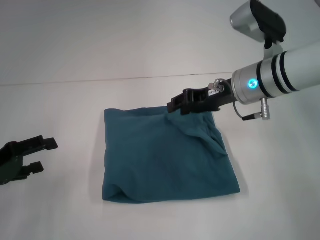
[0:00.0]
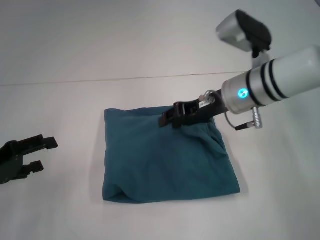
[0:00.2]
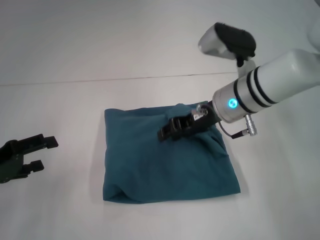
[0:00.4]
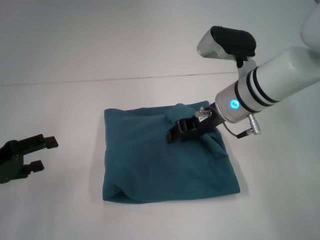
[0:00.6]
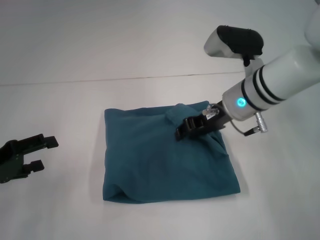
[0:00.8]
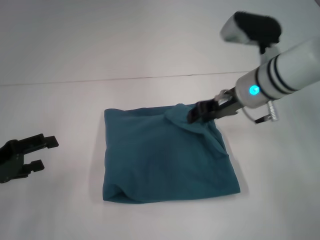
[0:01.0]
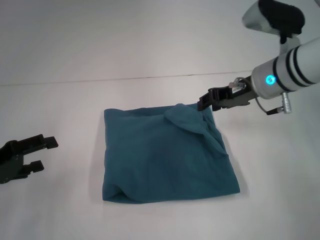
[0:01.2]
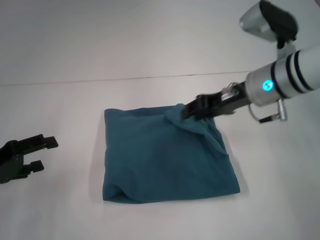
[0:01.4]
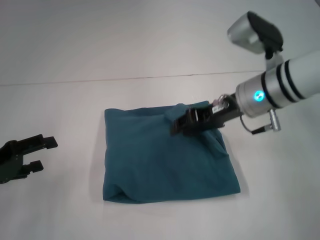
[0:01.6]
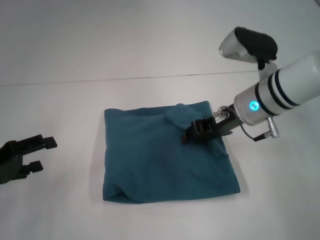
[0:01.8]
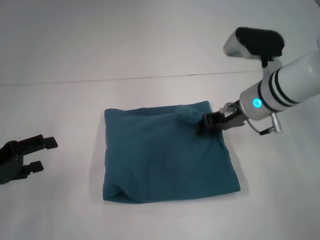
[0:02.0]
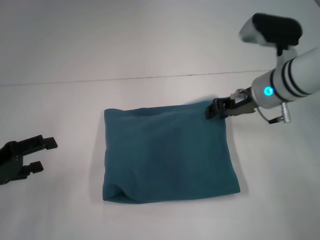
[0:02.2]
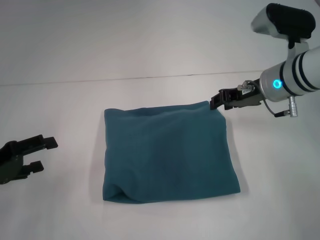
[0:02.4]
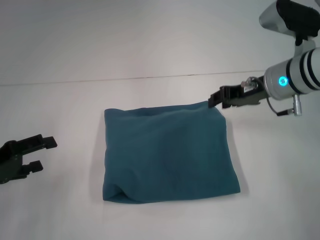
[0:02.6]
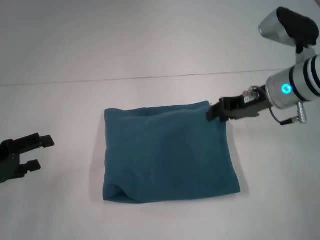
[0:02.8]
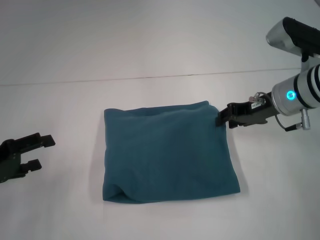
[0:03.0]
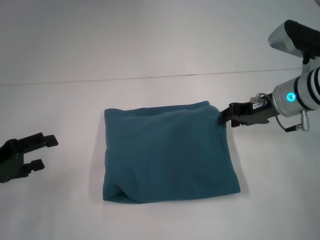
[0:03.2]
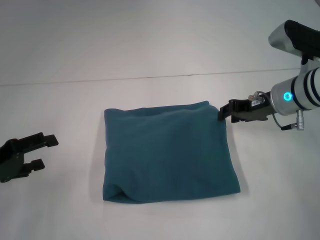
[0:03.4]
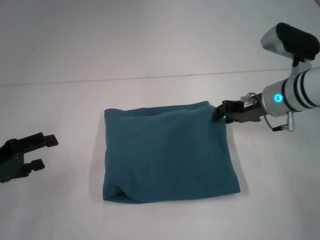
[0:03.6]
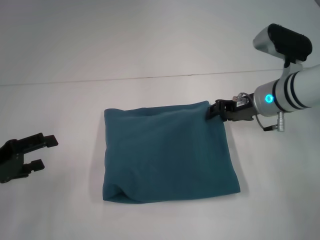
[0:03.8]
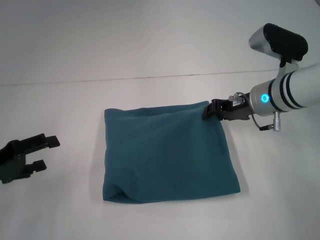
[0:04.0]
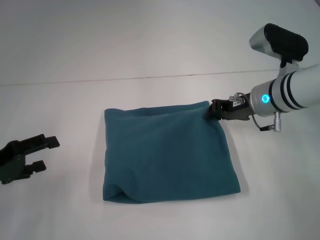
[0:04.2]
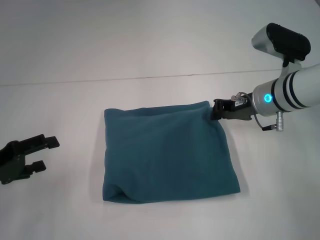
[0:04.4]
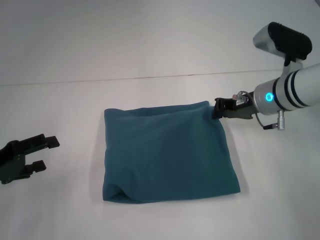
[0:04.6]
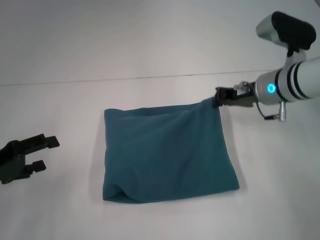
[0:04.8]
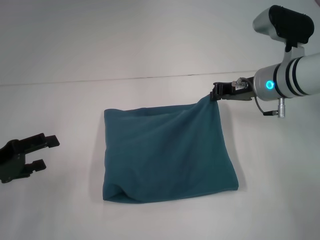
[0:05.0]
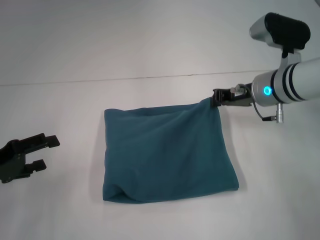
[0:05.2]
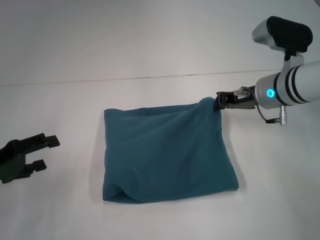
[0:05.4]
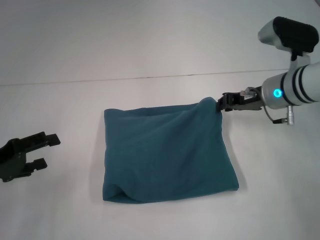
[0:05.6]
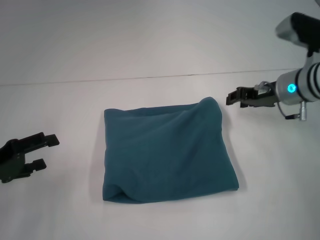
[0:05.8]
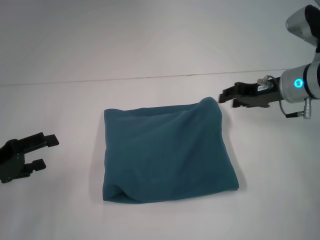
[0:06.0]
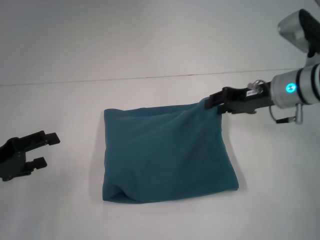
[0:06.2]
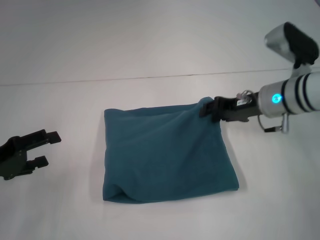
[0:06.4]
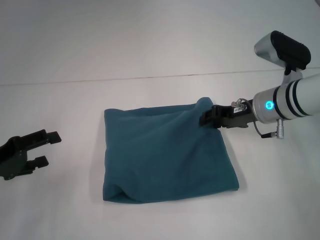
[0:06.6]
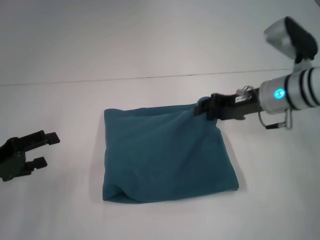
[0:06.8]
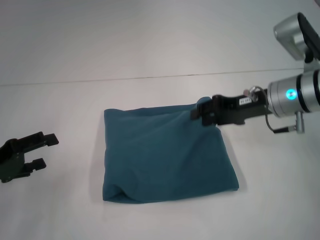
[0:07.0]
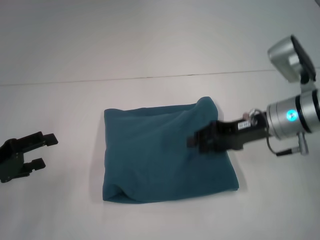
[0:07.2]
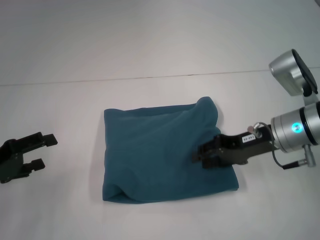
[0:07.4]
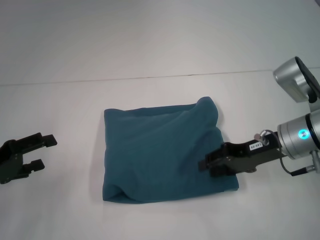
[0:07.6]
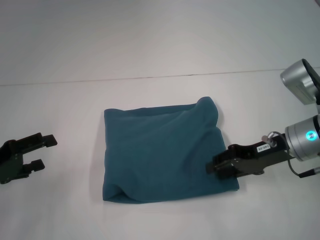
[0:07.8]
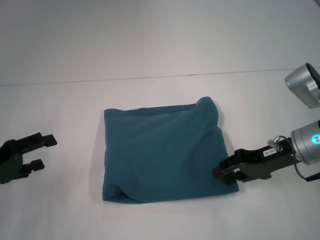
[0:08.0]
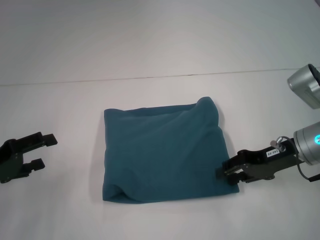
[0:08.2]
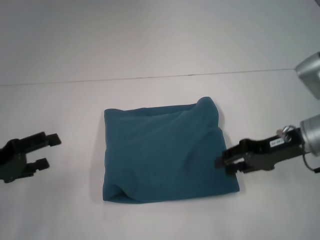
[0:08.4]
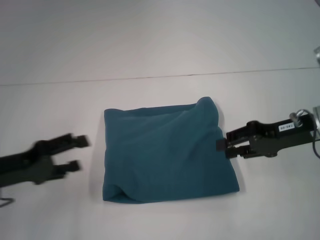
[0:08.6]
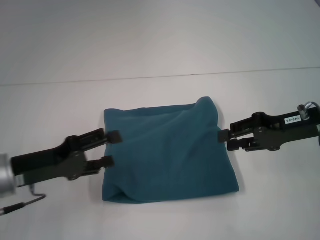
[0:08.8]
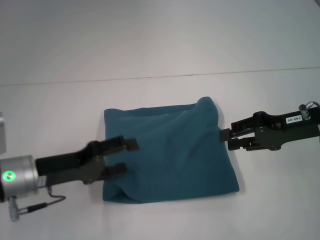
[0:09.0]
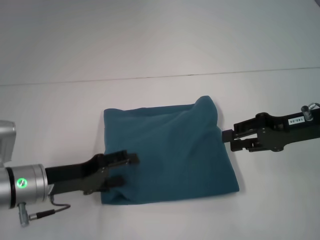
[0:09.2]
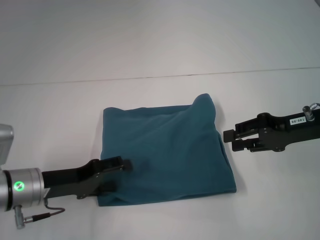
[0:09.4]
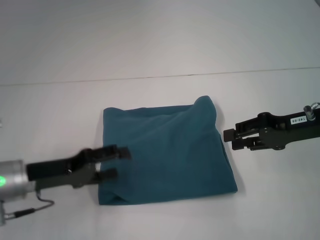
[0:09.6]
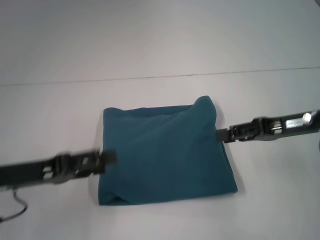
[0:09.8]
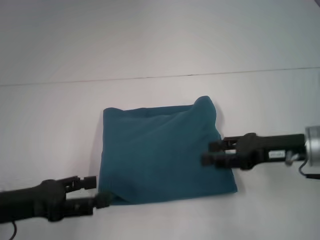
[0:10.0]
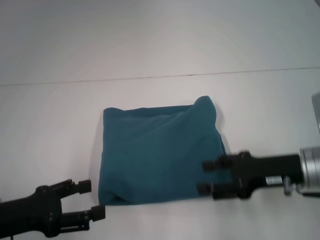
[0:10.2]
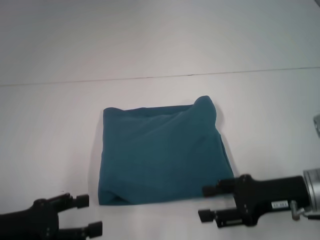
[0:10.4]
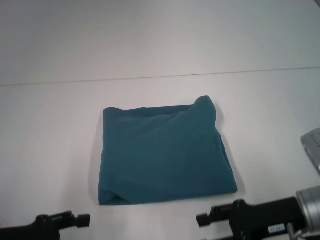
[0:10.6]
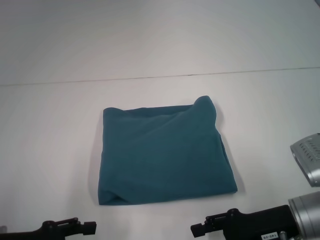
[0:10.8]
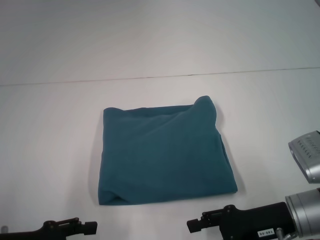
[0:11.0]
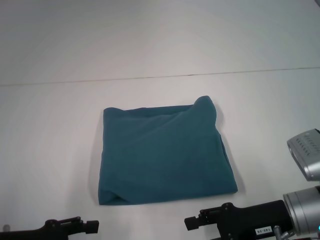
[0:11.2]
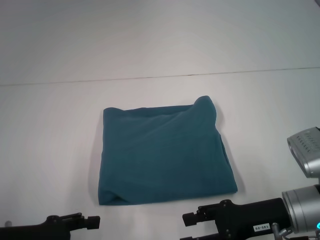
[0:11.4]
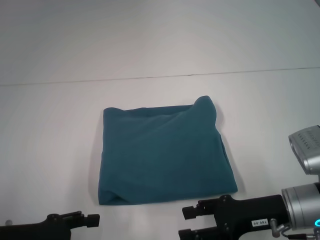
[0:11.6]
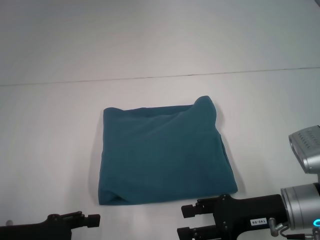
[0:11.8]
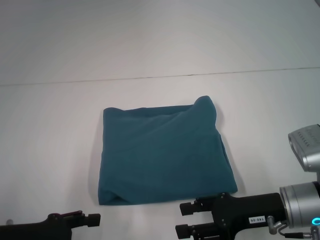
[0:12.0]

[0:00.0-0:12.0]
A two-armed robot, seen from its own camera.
0:00.0 to 0:01.6: There are only small adjustments of the grippers.
0:01.6 to 0:03.0: The right gripper is displaced to the right by approximately 5 cm.
0:03.0 to 0:06.0: The grippers move only a little.
0:06.0 to 0:07.6: The right gripper goes some 5 cm backward.
0:07.6 to 0:09.0: The left gripper heads to the right, covering some 10 cm. The right gripper changes place by about 5 cm.
0:09.0 to 0:10.4: The right gripper heads backward and downward, covering approximately 10 cm. Meanwhile the left gripper is displaced backward and to the left by some 10 cm.
0:10.4 to 0:12.0: There are only small adjustments of the grippers.

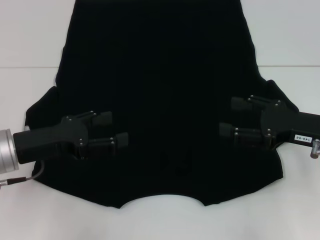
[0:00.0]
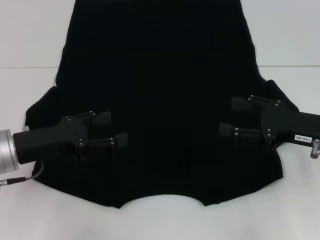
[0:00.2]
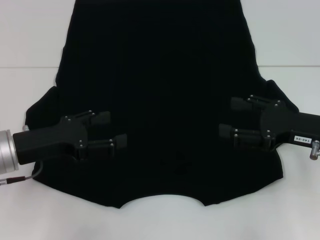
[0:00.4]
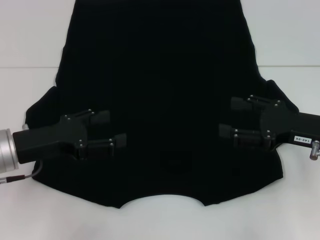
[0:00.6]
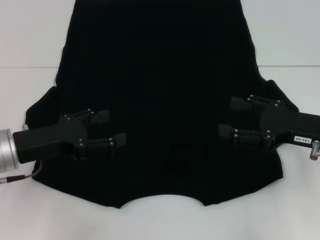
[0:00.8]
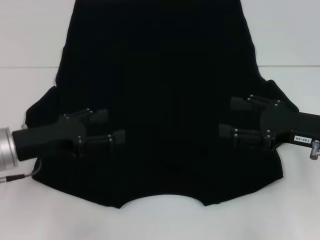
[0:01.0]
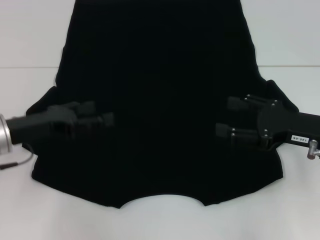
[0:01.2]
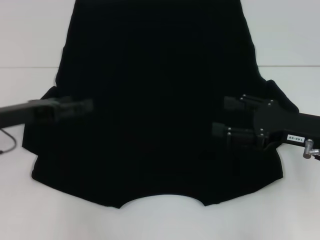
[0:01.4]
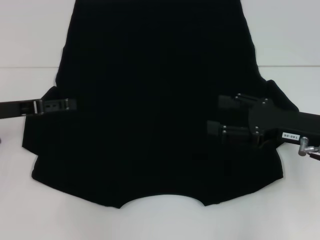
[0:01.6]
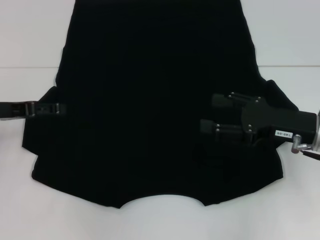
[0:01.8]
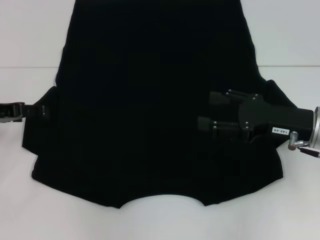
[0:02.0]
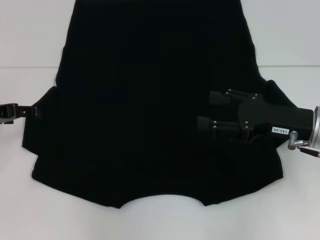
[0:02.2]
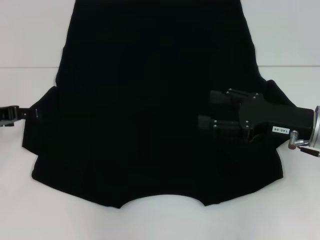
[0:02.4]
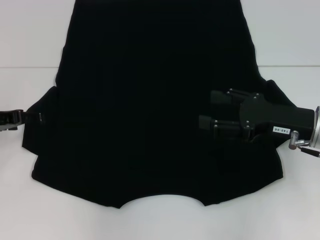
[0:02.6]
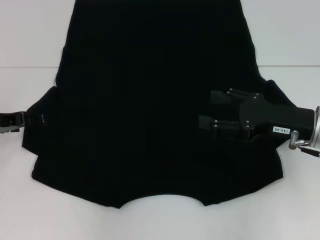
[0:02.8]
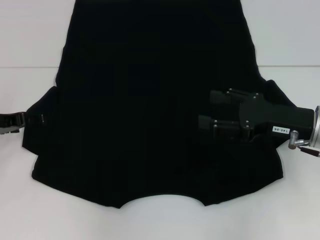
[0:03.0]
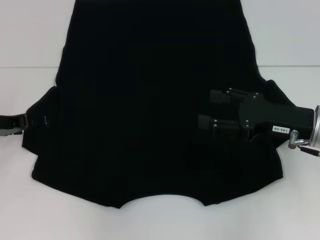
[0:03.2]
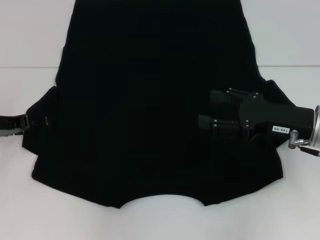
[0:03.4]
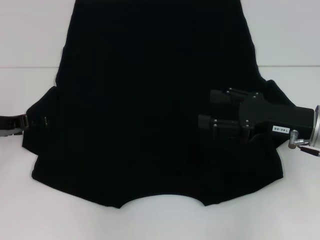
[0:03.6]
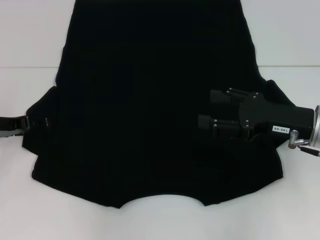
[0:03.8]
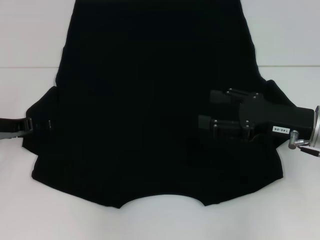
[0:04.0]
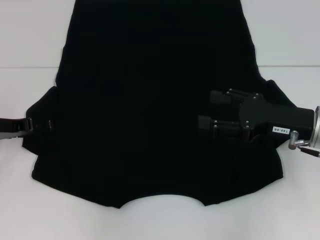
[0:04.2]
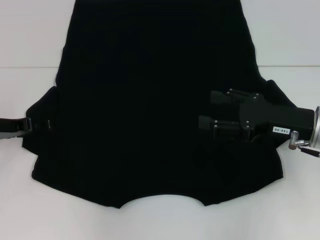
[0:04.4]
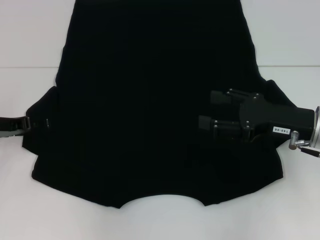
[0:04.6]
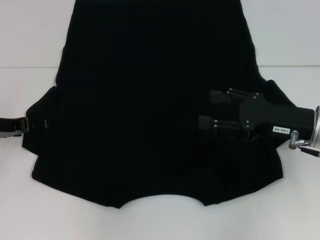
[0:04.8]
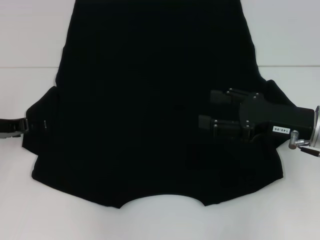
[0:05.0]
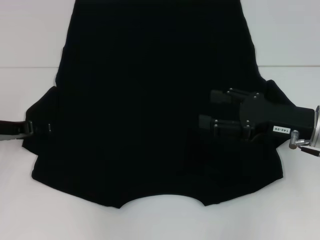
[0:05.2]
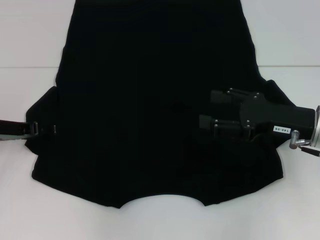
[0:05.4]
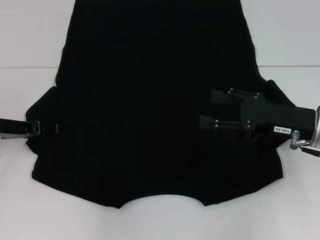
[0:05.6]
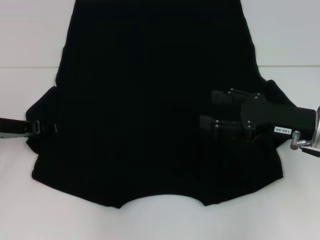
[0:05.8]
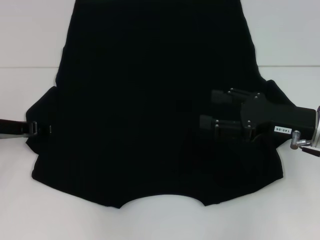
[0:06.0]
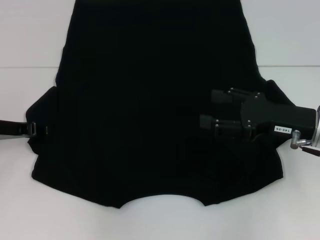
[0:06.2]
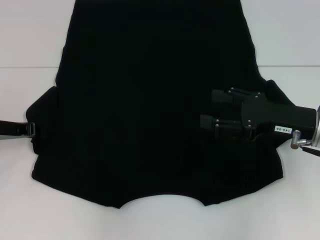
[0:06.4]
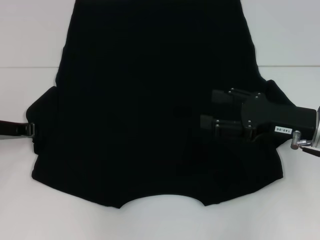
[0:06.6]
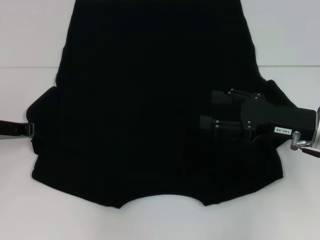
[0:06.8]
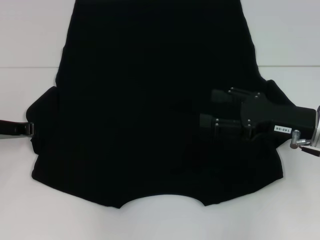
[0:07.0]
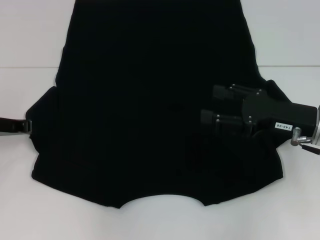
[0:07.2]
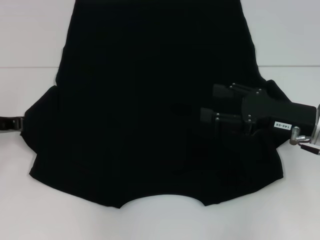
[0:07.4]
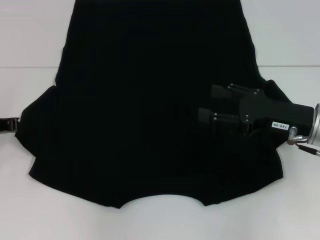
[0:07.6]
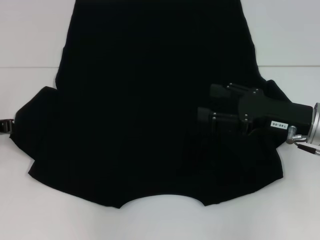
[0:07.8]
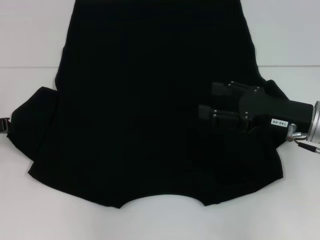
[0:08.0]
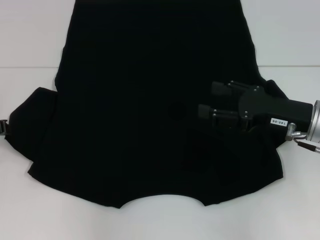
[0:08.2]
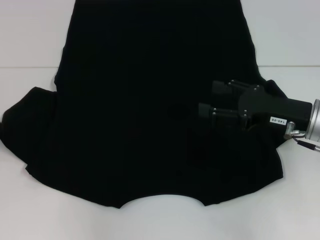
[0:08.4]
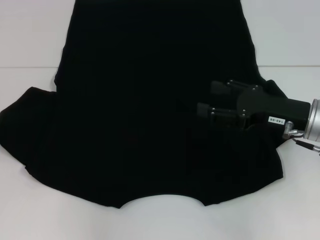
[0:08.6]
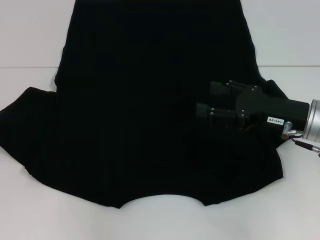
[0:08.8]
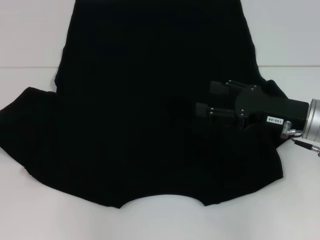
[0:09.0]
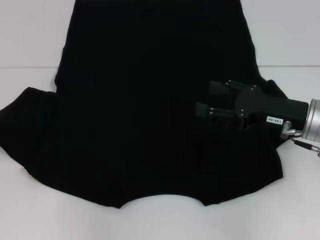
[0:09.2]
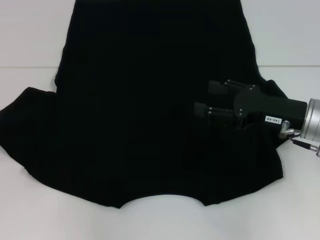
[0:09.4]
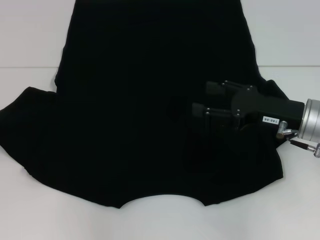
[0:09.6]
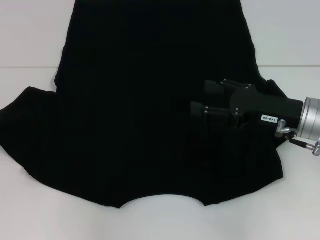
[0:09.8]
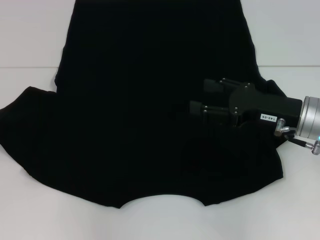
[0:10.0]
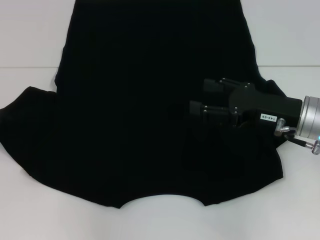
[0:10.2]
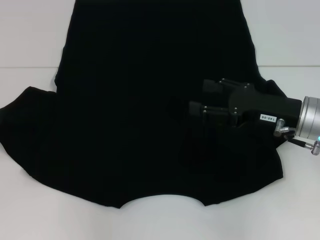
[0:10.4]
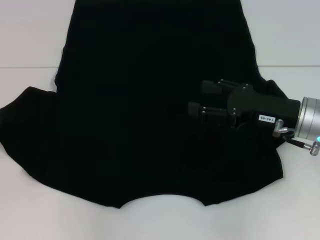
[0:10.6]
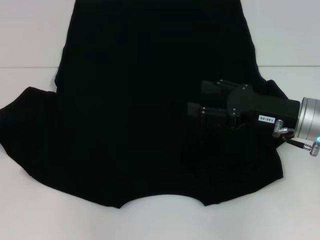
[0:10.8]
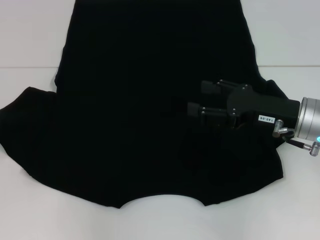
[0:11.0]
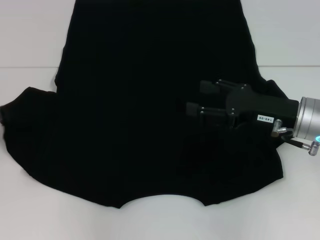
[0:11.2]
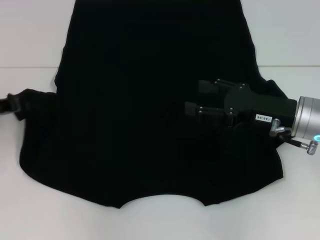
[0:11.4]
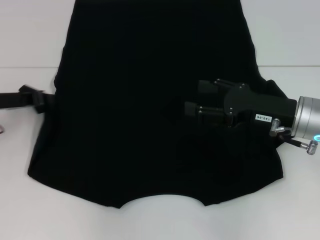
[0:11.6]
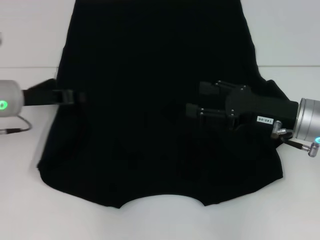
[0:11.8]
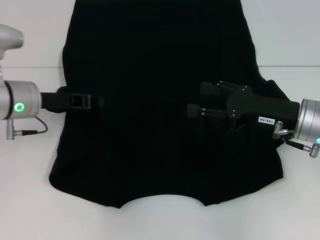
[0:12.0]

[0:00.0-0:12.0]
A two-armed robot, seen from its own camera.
0:00.0 to 0:01.6: The left gripper shifts some 5 cm to the left.
0:04.4 to 0:06.0: The grippers make only small movements.
0:06.0 to 0:07.6: The left gripper closes up.
0:07.6 to 0:09.0: The grippers stay close to where they were, moving slightly.
0:09.0 to 0:10.4: The two grippers keep their place.
0:10.4 to 0:12.0: The left gripper travels to the right by about 10 cm.
